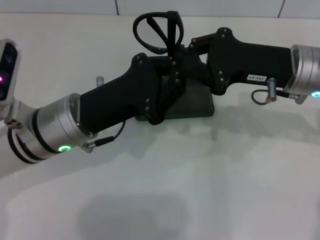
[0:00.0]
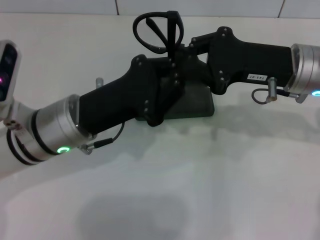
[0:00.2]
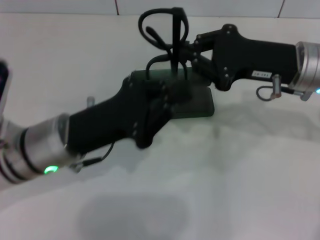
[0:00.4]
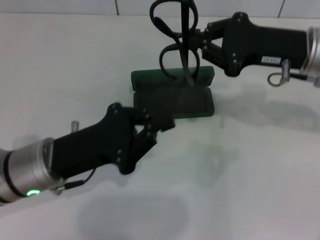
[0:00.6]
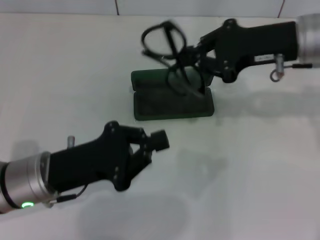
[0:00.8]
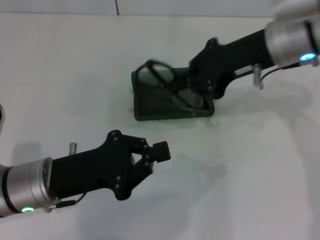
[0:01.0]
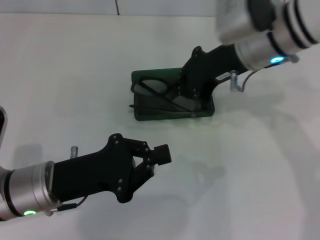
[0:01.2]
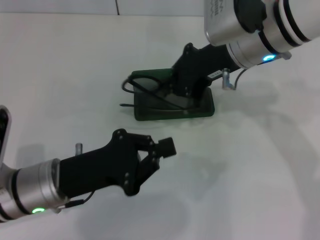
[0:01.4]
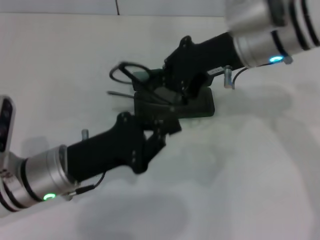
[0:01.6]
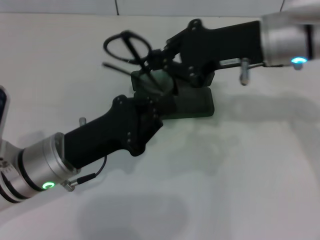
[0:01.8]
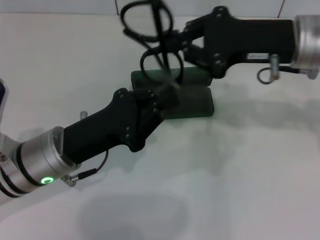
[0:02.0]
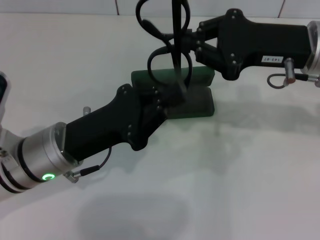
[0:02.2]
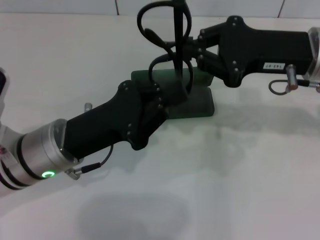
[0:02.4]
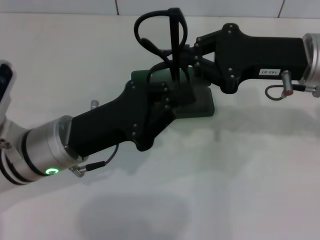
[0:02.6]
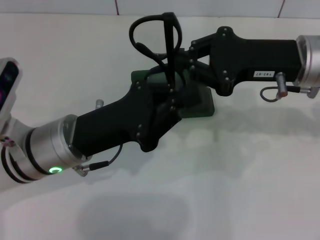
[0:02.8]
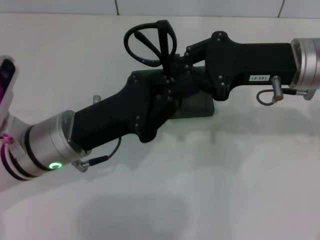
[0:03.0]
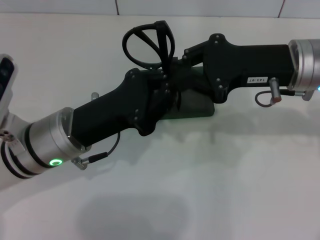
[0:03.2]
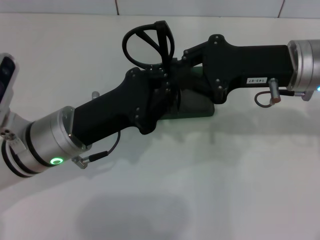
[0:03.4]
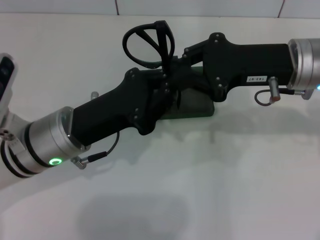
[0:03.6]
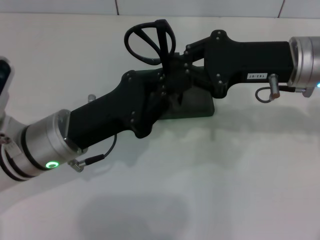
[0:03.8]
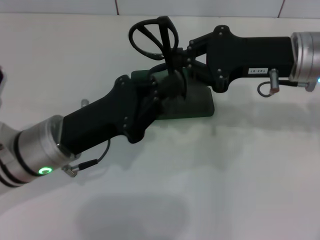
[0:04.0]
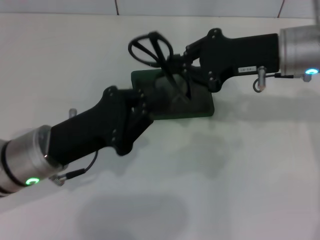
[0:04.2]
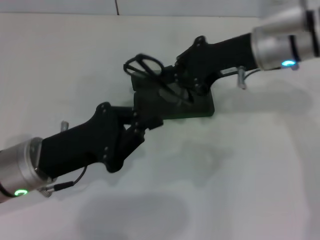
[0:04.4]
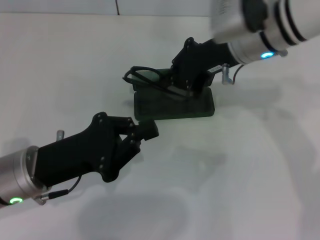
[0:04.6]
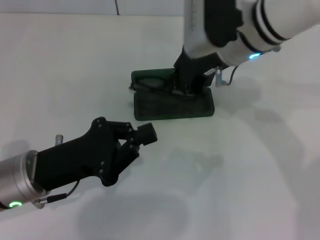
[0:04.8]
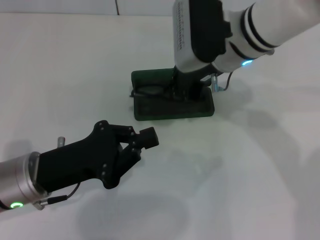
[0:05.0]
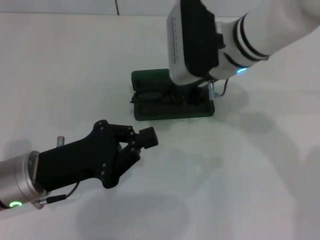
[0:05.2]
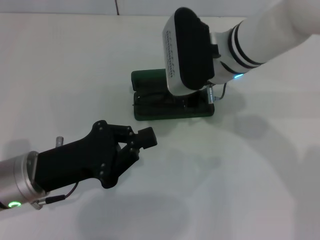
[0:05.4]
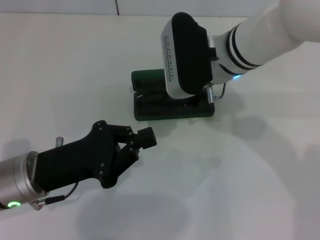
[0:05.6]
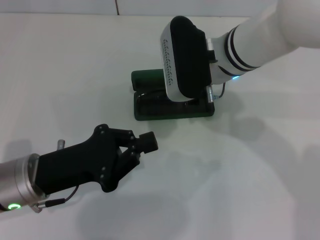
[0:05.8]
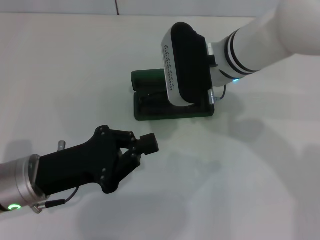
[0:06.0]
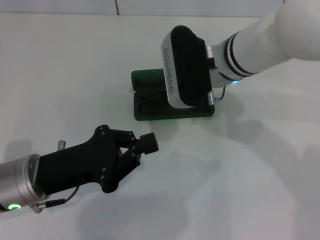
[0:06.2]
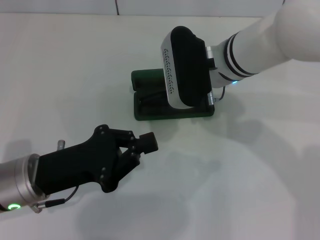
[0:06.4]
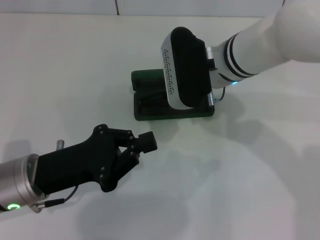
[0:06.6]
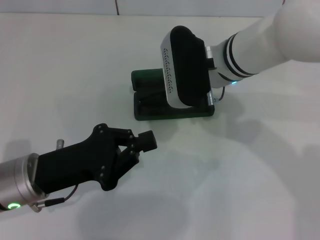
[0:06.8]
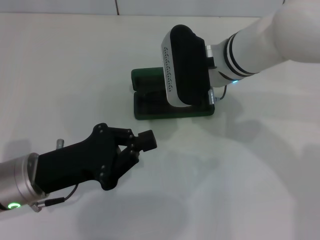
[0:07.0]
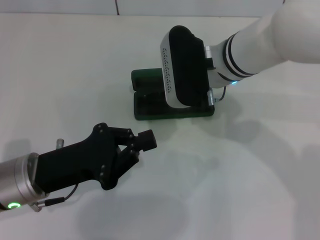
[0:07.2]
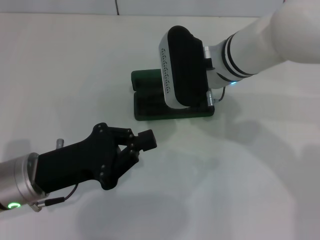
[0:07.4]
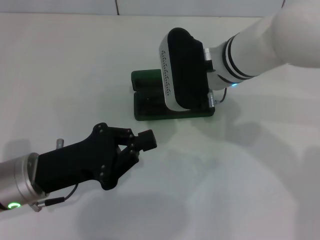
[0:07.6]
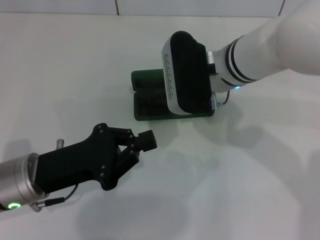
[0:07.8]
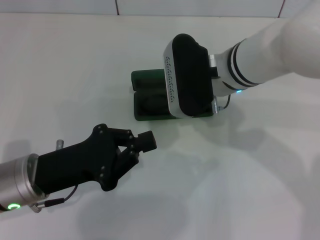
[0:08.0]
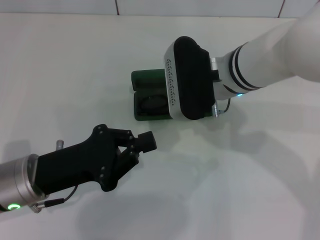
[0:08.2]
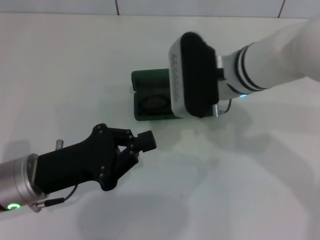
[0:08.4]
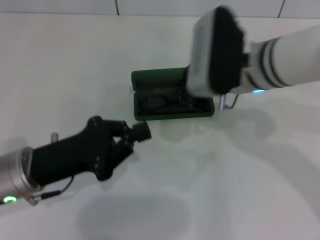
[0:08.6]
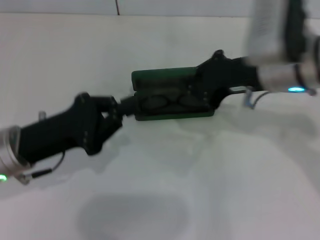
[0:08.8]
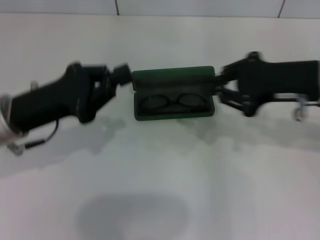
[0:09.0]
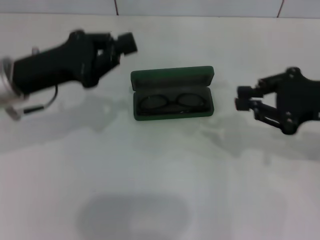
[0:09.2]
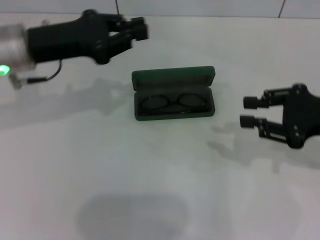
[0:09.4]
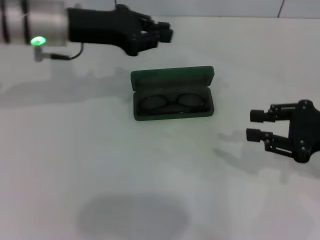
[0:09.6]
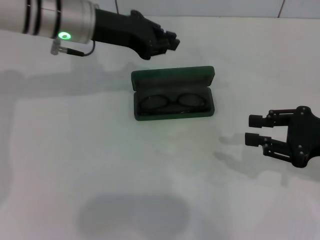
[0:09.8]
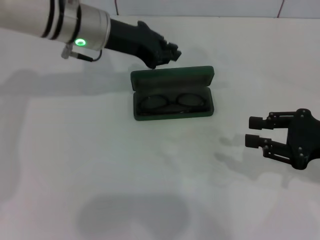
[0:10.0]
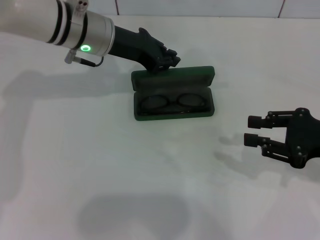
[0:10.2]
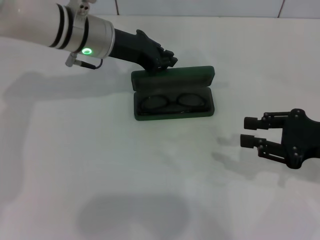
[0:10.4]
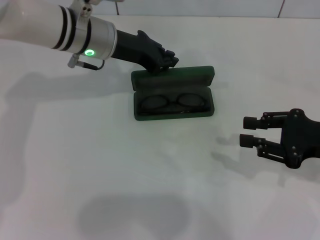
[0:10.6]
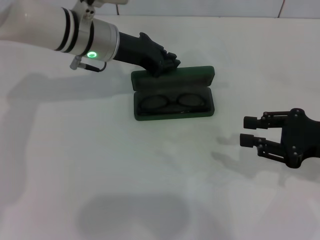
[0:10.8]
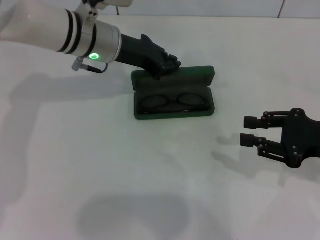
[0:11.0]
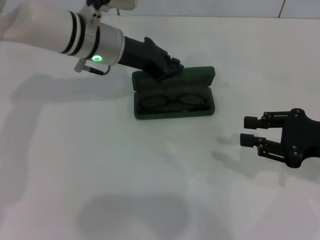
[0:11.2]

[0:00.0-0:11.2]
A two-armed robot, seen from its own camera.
Step, 0.0 to 3.6 s: Fold the frame with your left hand.
Step, 3.8 to 7.8 s: Put the glasses into the case with your right hand.
0.0 to 1.6 s: The right gripper is displaced to the left and upward by about 10 cm. The left gripper moves about 5 cm.
1.6 to 3.2 s: The right gripper travels to the right by some 5 cm.
3.2 to 4.8 s: The left gripper moves to the left, approximately 5 cm. Meanwhile the right gripper goes about 10 cm to the left.
4.8 to 8.0 s: The grippers make only small movements.
8.0 to 9.6 s: The right gripper is displaced to the right by some 25 cm. Meanwhile the left gripper goes about 20 cm forward and upward.
9.6 to 11.2 s: The left gripper goes about 5 cm to the right.

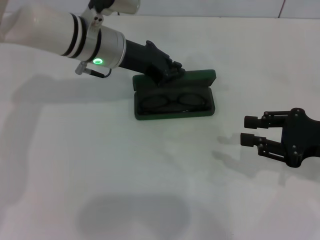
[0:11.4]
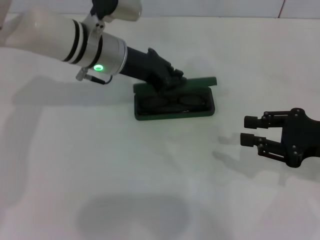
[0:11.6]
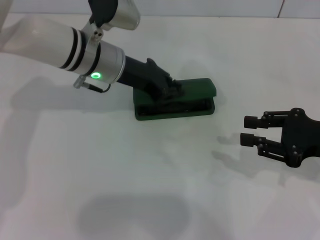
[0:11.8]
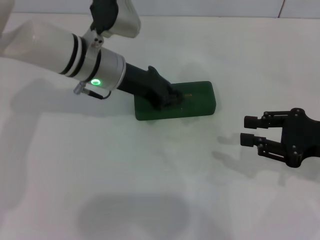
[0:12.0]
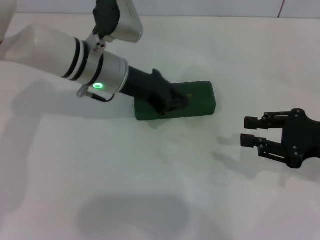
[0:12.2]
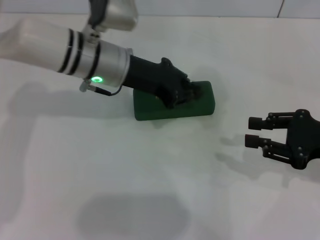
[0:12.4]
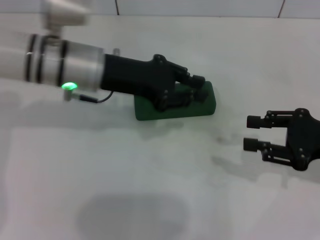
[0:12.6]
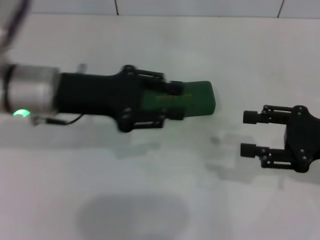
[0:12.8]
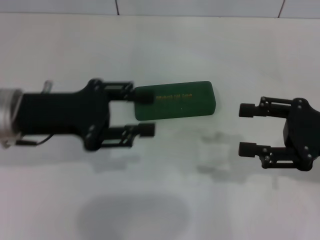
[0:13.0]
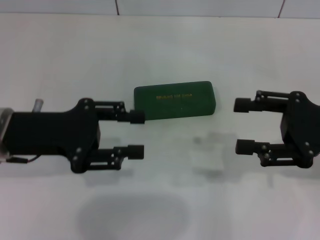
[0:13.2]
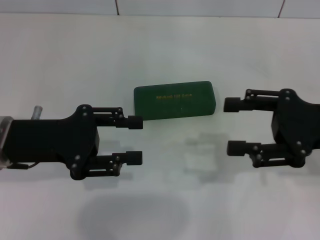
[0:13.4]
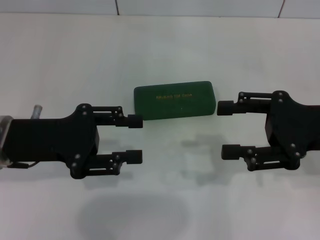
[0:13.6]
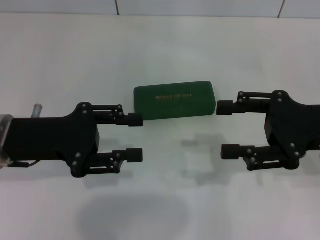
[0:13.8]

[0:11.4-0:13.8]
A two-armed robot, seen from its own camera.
11.4 to 12.6 s: The left gripper is displaced backward by approximately 5 cm.
12.6 to 13.8 s: The left gripper is displaced to the left and backward by roughly 15 cm, and opens up; the right gripper shifts by about 5 cm.

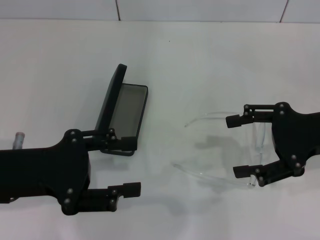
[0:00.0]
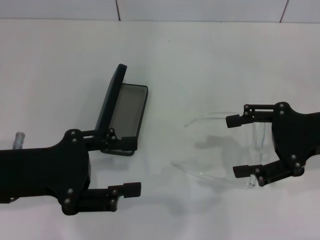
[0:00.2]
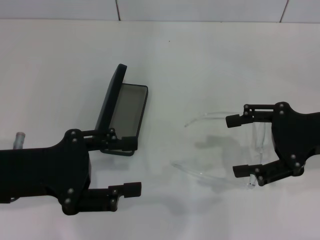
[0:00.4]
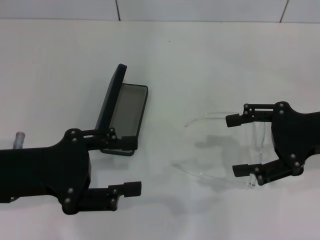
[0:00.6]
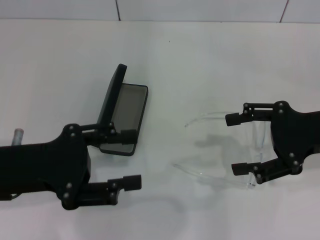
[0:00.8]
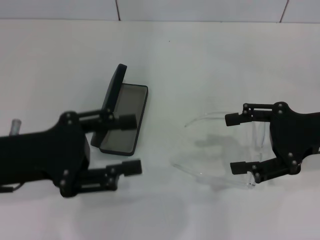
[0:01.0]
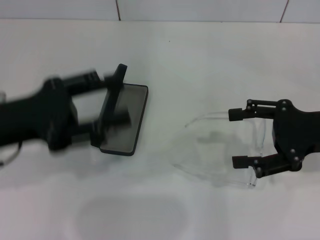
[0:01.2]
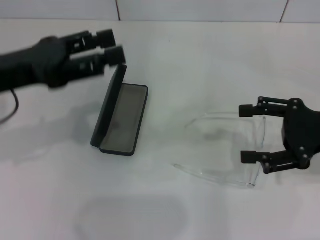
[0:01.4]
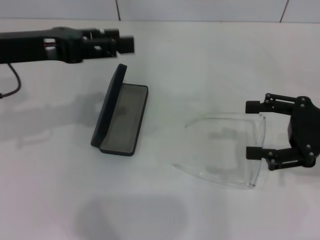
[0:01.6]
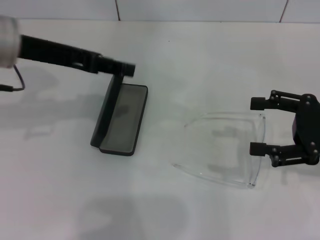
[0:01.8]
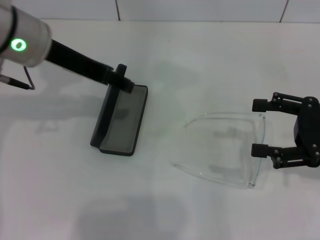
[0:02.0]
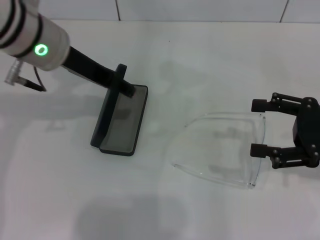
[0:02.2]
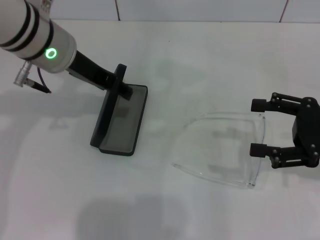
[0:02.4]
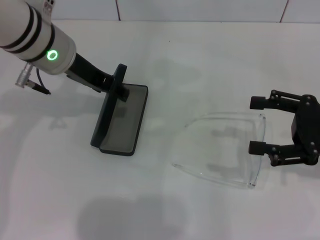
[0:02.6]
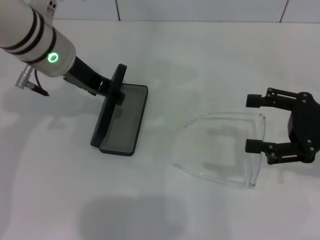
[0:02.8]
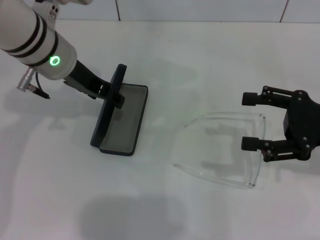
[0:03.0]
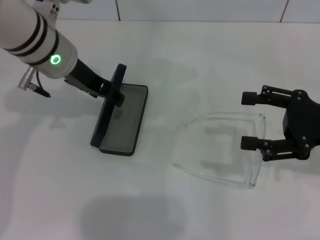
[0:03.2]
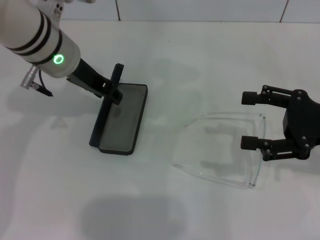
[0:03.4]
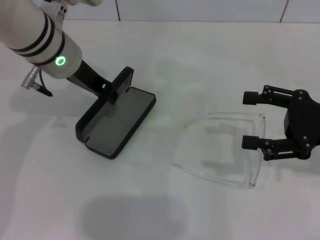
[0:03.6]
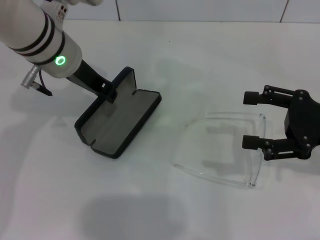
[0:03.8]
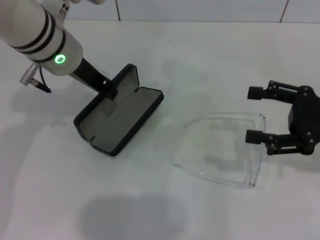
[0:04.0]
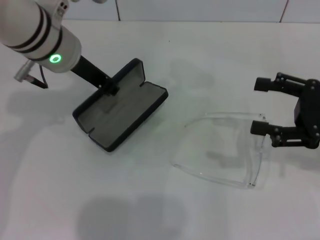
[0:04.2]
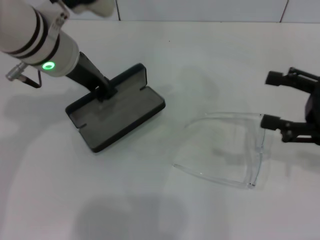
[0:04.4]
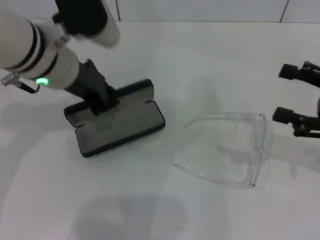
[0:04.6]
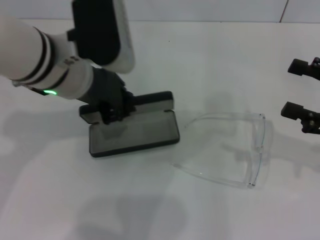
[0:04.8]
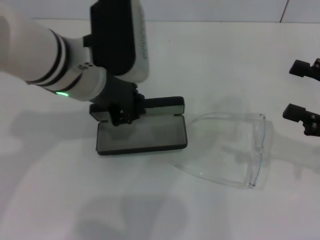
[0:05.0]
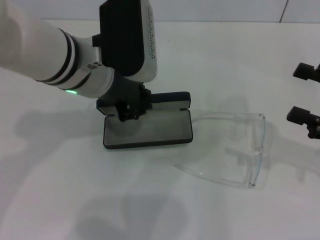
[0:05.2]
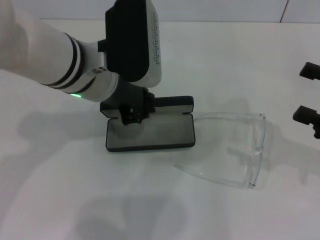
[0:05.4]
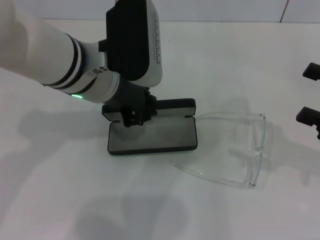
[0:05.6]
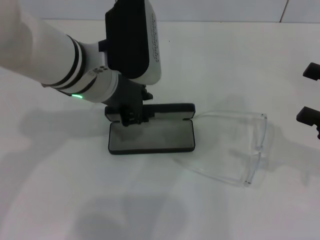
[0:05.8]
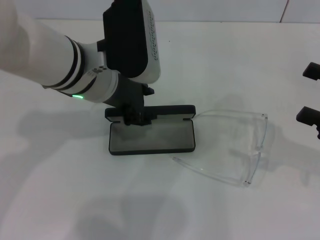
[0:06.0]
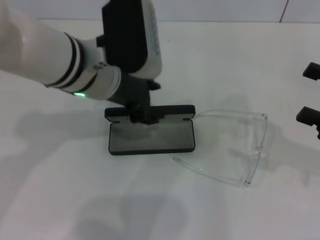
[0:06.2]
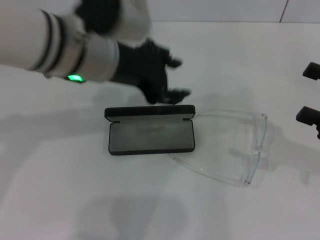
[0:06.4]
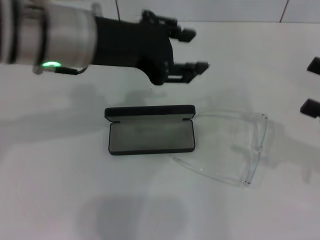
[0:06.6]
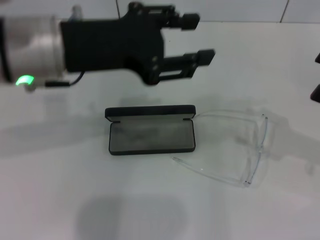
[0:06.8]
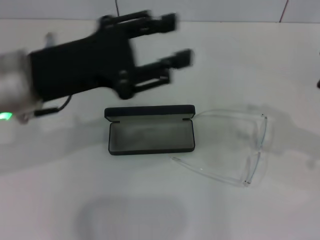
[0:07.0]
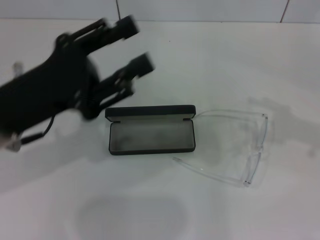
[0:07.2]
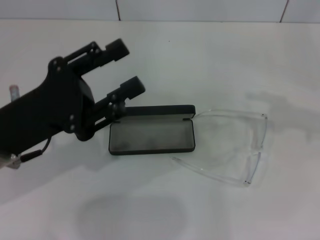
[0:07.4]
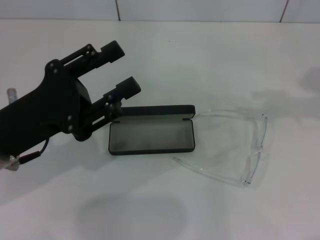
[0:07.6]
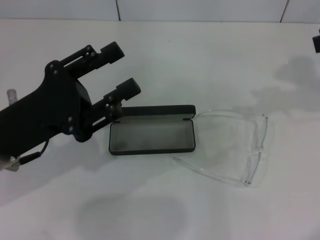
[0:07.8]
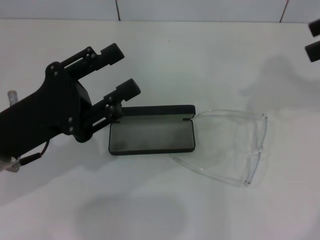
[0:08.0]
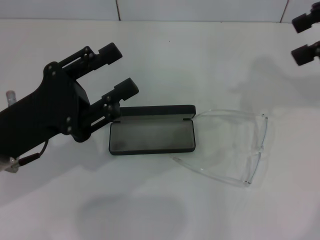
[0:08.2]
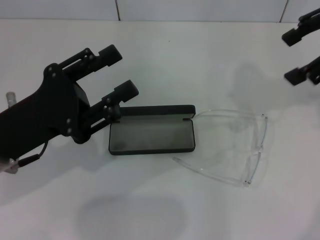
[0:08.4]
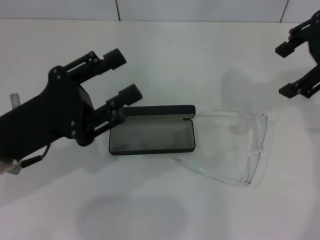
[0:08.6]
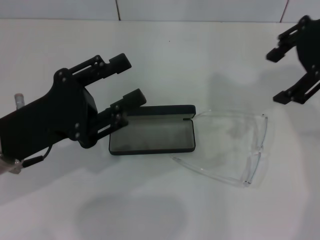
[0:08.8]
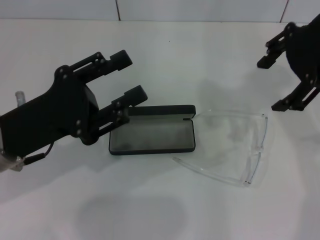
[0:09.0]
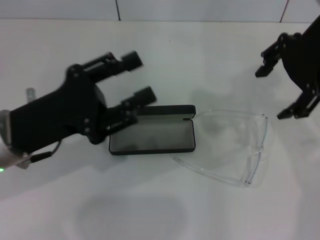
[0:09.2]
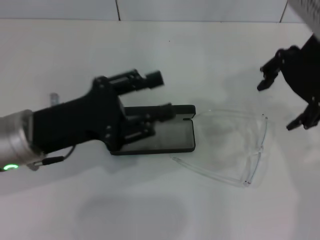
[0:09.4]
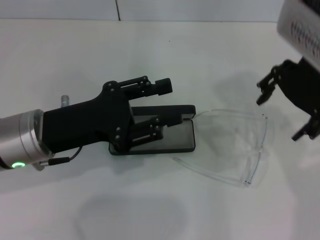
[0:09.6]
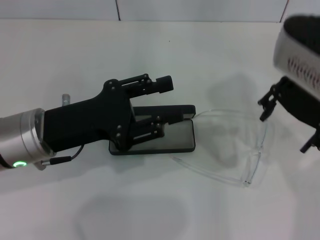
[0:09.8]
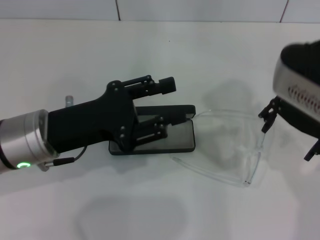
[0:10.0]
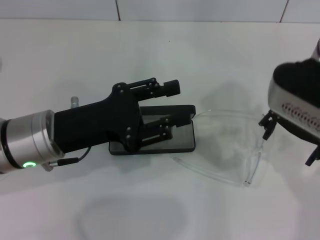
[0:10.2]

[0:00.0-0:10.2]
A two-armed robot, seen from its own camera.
Step, 0.0 to 3.6 s: Grab the glasses case with your left hand.
Step, 3.8 to 5.8 s: Place the glasses case in the center of the table with your left hand.
0.0 to 1.4 s: The left gripper shifts approximately 10 cm forward and upward.
1.4 to 3.0 s: The left gripper moves forward and to the right, some 15 cm.
3.0 to 4.4 s: The left gripper closes.
4.4 to 5.8 s: The left gripper shifts by about 5 cm.
5.8 to 7.2 s: The right gripper changes place by about 5 cm; the left gripper travels to the left and backward by roughly 15 cm, and opens.
7.2 to 8.8 s: The right gripper travels to the left, upward and forward by roughly 20 cm.
8.8 to 10.2 s: The right gripper travels downward and to the left by about 10 cm.
